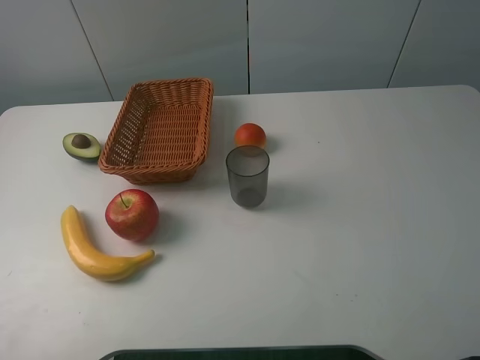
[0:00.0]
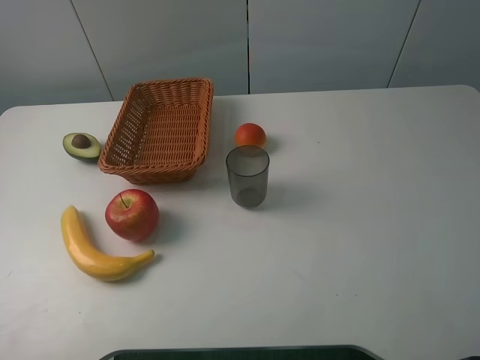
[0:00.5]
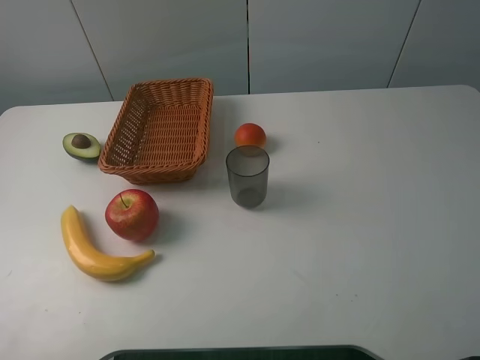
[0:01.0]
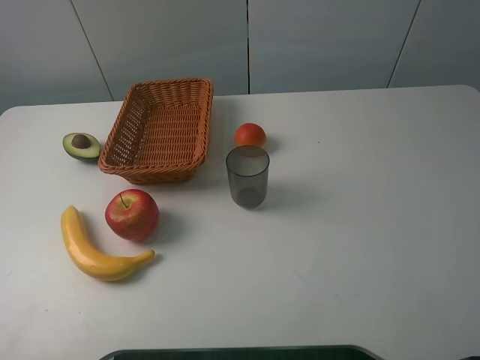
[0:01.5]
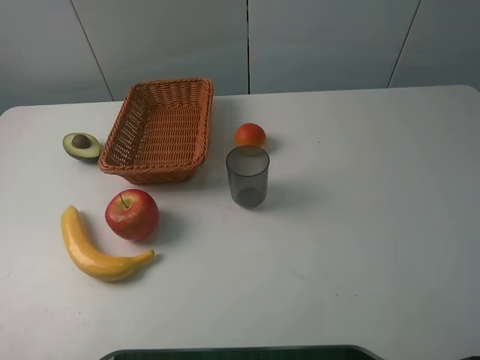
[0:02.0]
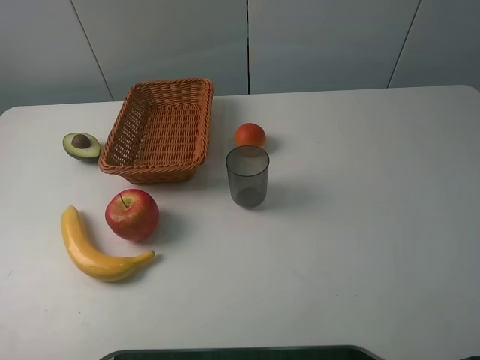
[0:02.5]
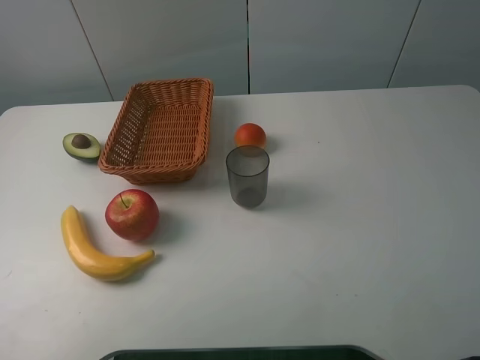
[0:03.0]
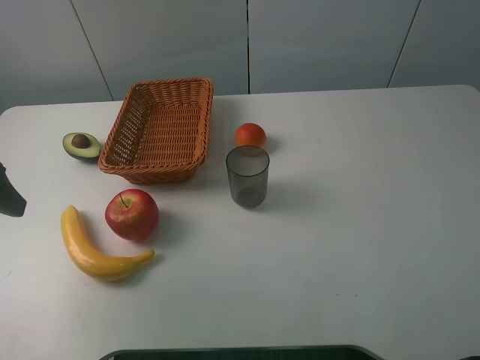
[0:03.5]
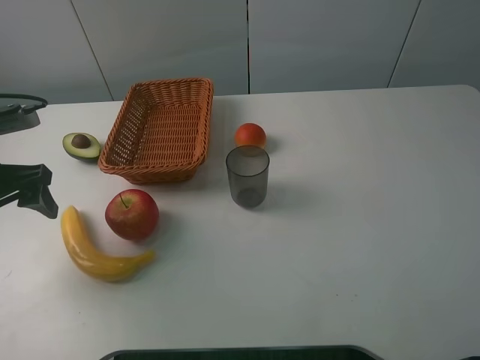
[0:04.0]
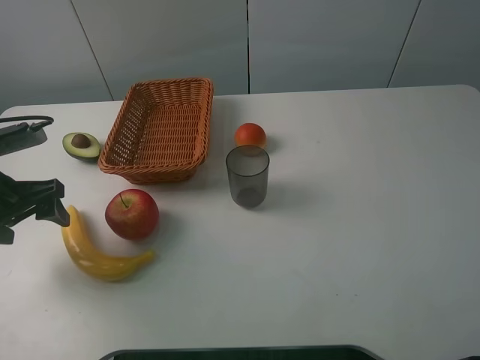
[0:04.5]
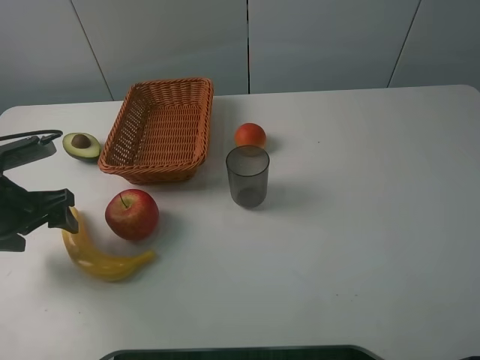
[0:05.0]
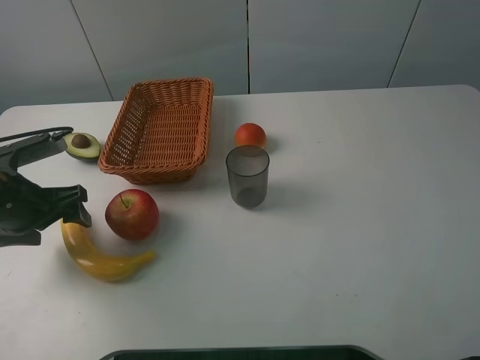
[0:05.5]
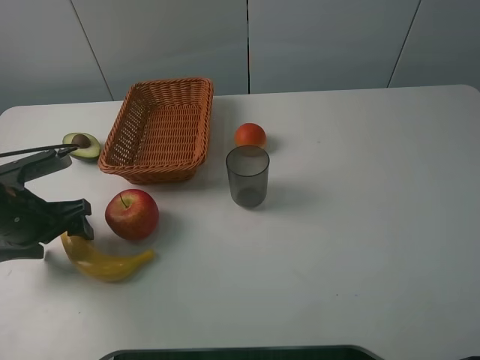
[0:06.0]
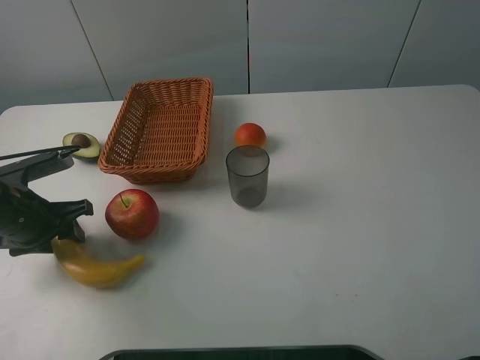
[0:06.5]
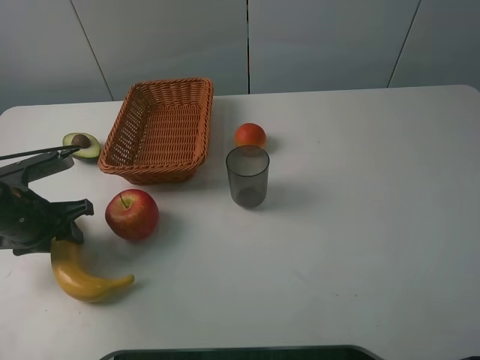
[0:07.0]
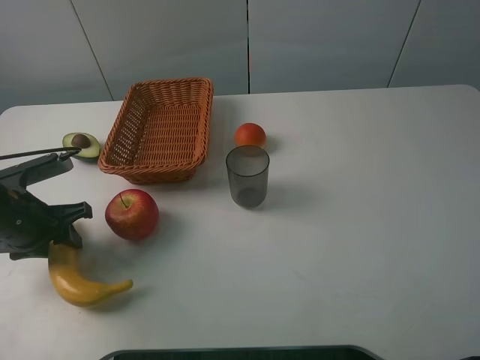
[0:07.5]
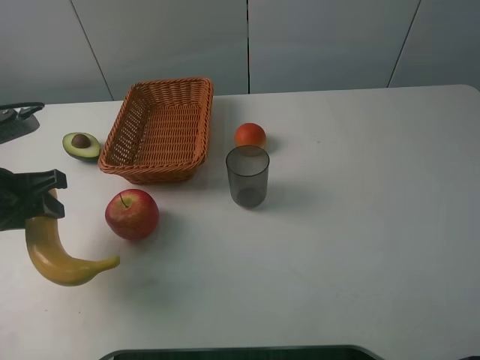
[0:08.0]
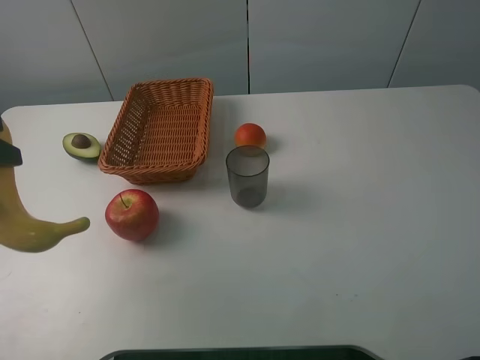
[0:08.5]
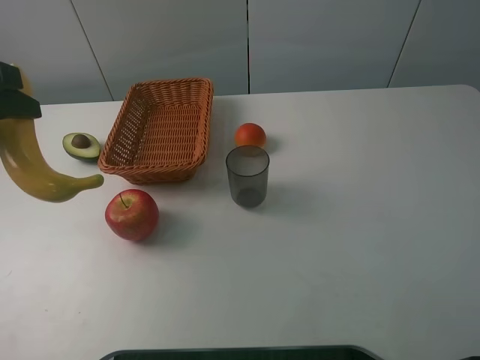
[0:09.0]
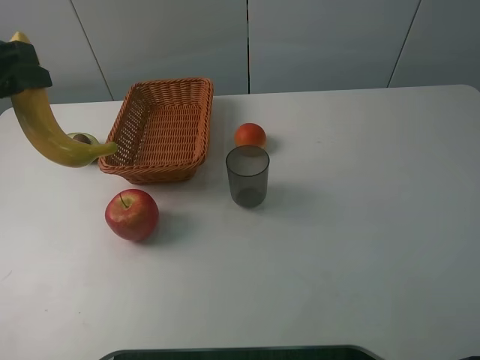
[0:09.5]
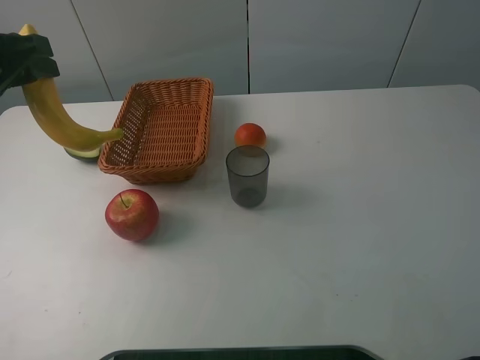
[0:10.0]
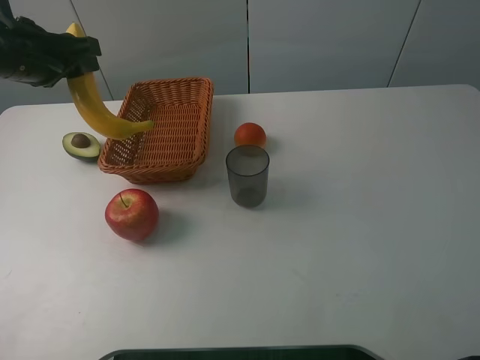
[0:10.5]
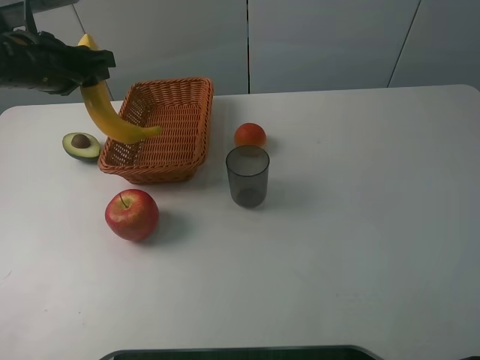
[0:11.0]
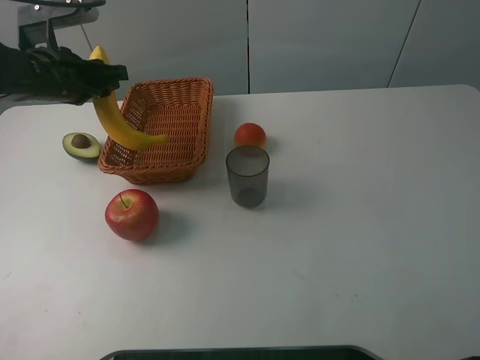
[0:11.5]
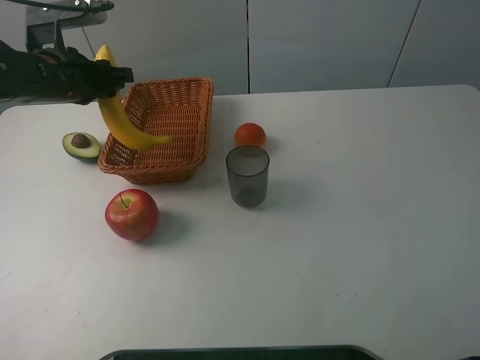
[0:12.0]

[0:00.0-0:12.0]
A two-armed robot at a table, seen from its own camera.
0:02.0 to 0:04.0: The left gripper travels forward and downward by approximately 25 cm.
0:04.0 to 0:06.0: The left gripper shifts some 10 cm downward.
0:06.0 to 0:08.0: The left gripper is displaced upward by roughly 10 cm, and closes.
0:08.0 to 0:10.0: The left gripper moves upward and forward, about 10 cm.
0:10.0 to 0:12.0: The left gripper heads forward and downward, covering roughly 10 cm.

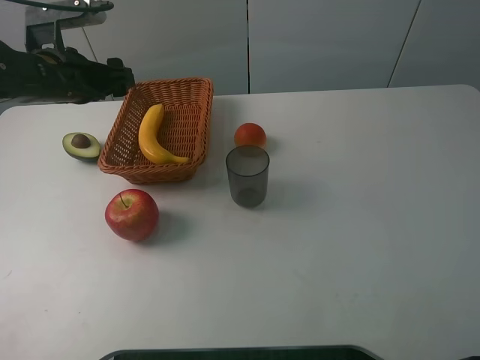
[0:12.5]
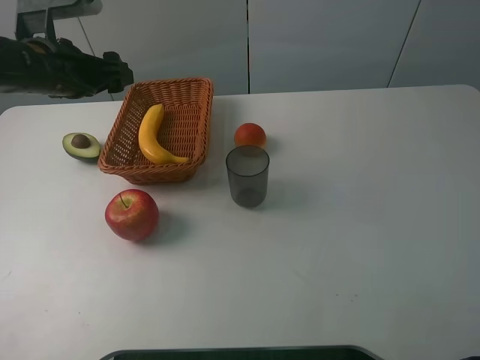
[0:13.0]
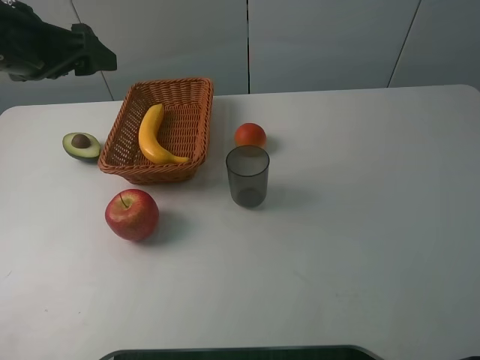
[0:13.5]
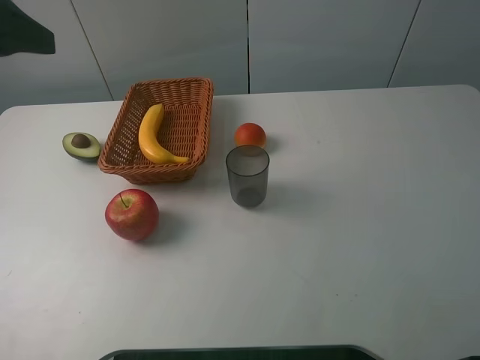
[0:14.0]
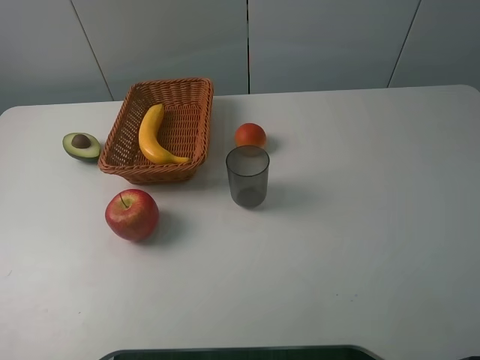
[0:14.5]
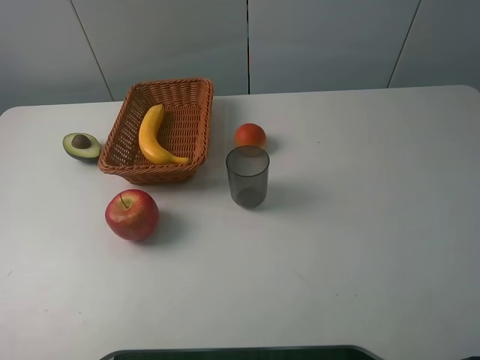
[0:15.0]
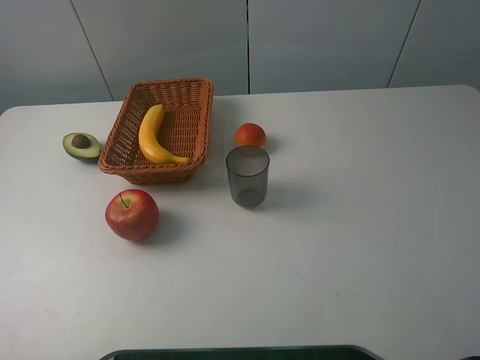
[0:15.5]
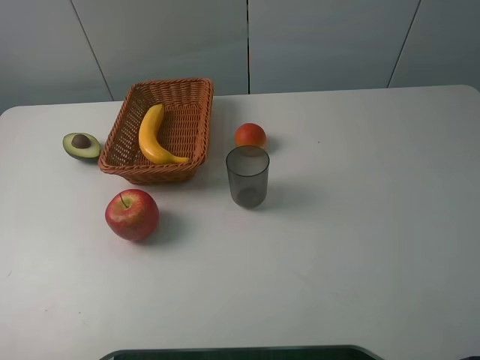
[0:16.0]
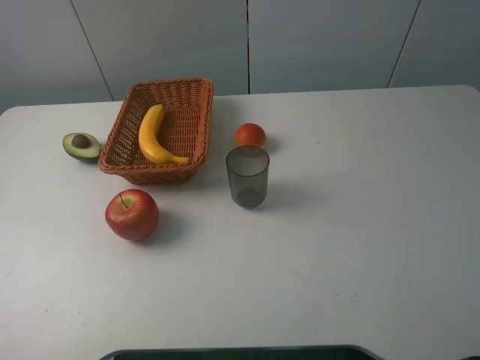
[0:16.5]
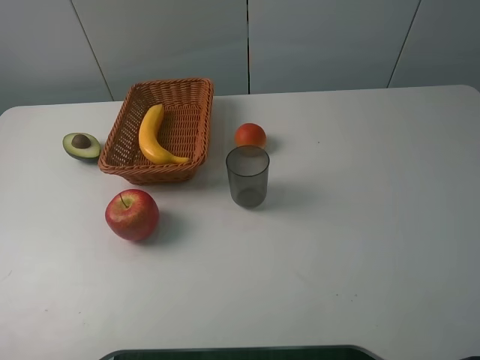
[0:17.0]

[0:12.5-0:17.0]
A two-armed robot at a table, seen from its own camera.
0:12.5 to 0:14.5: The left gripper heads backward and upward, covering some 30 cm.

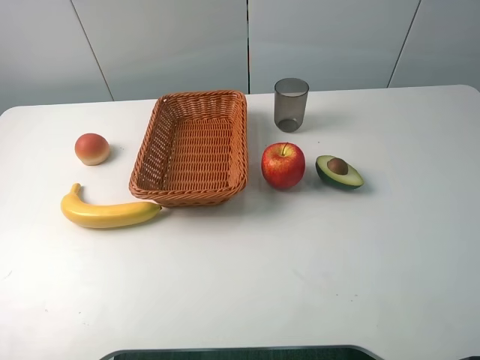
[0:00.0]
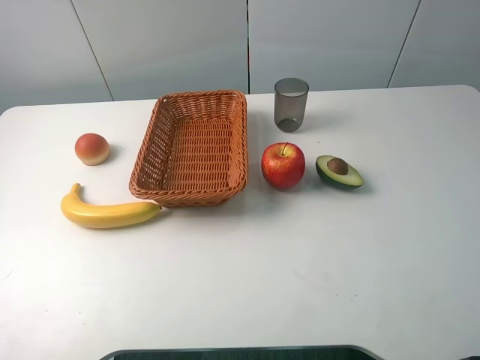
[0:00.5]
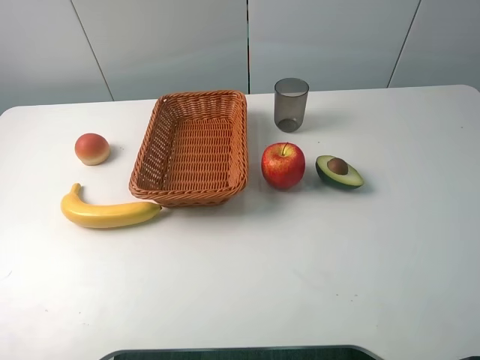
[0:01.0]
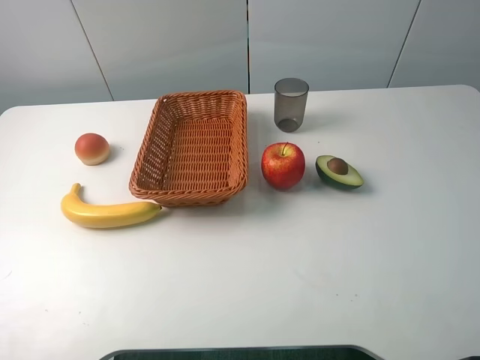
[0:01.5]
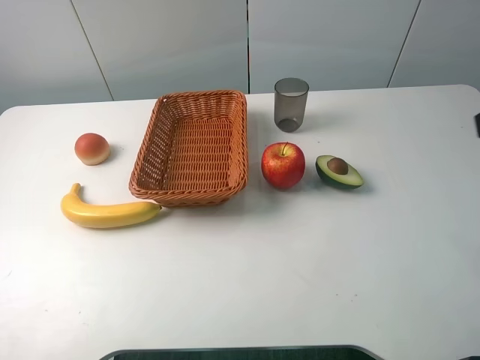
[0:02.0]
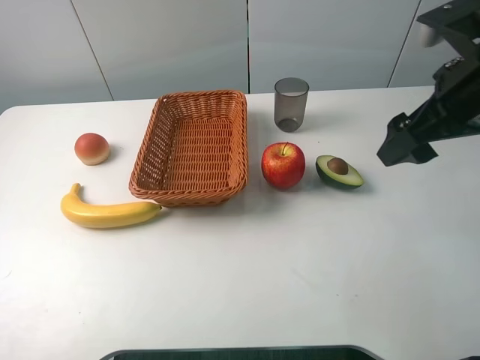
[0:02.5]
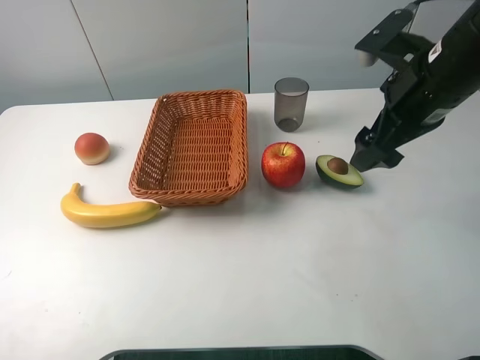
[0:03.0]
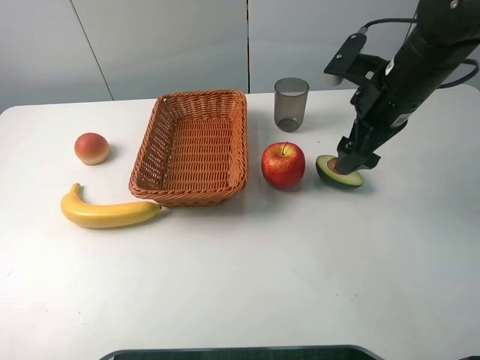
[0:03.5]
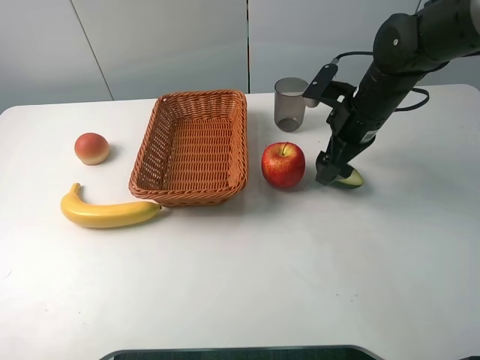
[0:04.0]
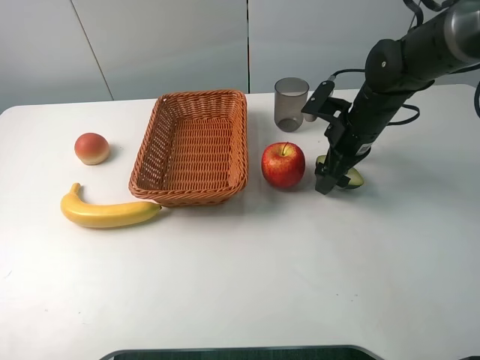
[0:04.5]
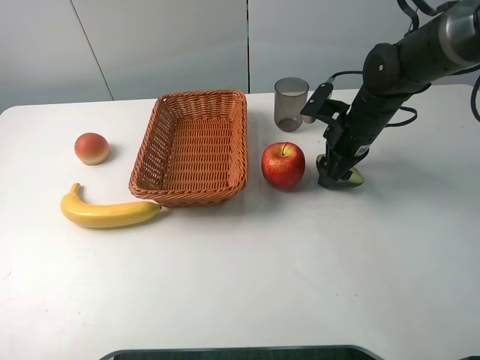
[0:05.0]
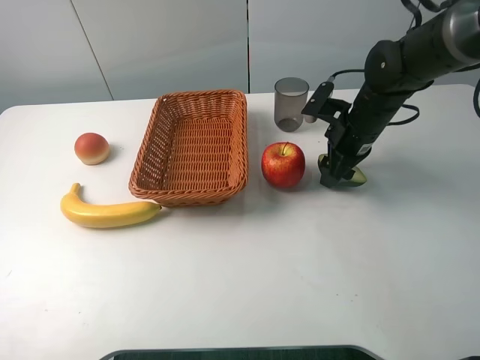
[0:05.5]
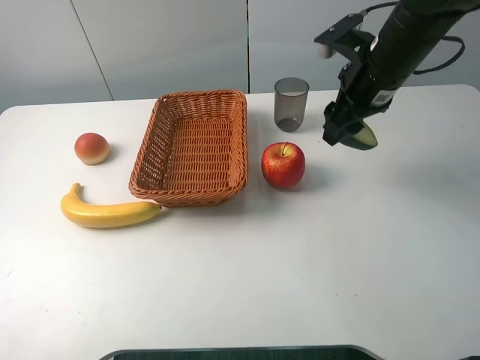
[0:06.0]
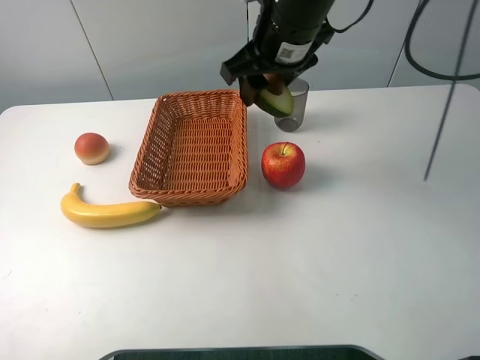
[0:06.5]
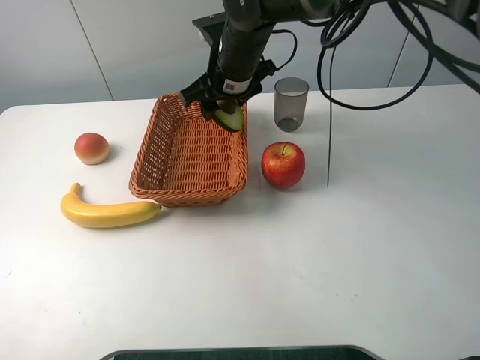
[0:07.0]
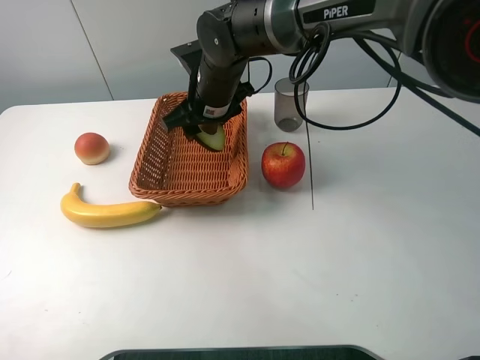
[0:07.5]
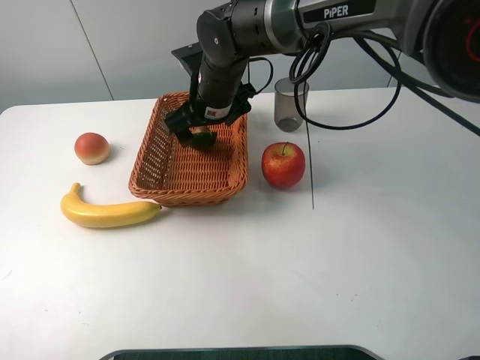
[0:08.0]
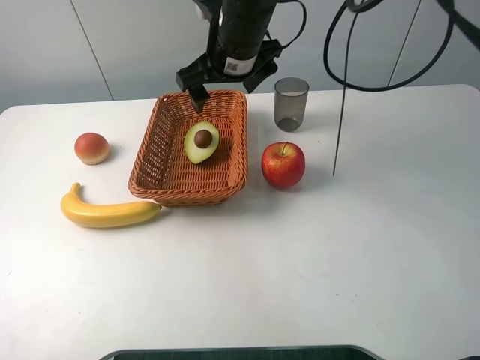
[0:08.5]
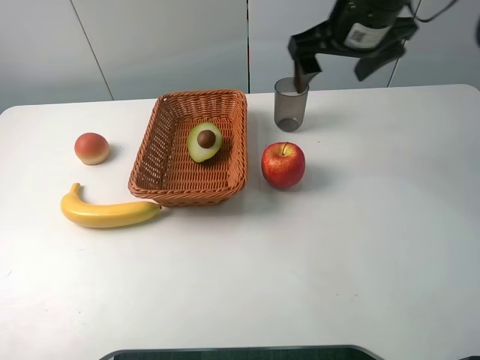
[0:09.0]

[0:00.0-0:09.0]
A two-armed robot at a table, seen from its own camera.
0:02.0 to 0:04.5: The right gripper shifts some 30 cm downward, forward and to the left.
0:04.5 to 0:07.0: The right gripper travels to the left and upward by roughly 20 cm, and closes up.
0:07.0 to 0:09.0: The right gripper heads to the right and upward, covering about 20 cm, and opens its fingers.
